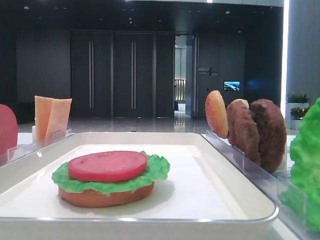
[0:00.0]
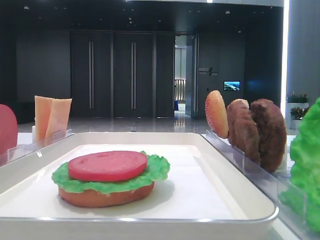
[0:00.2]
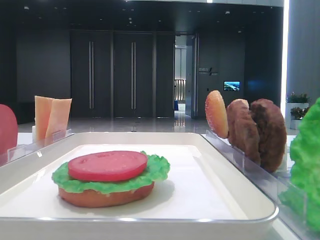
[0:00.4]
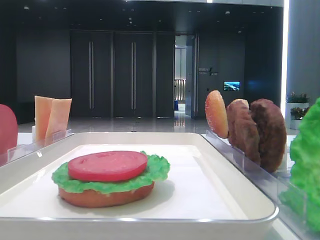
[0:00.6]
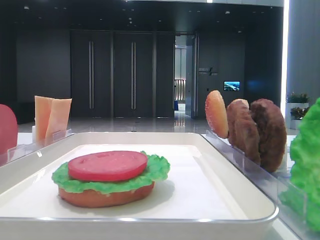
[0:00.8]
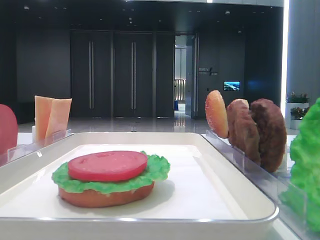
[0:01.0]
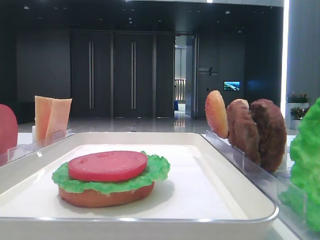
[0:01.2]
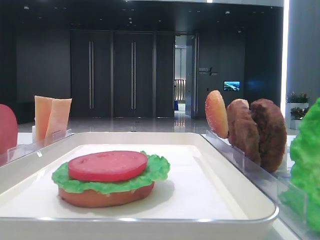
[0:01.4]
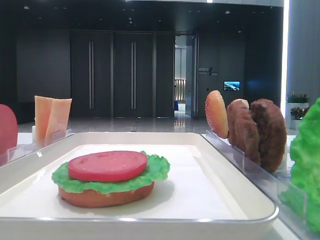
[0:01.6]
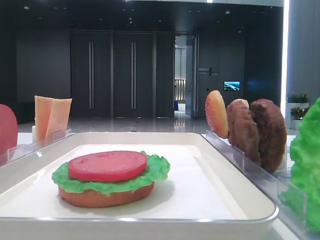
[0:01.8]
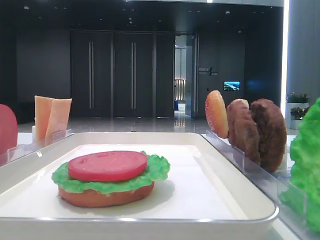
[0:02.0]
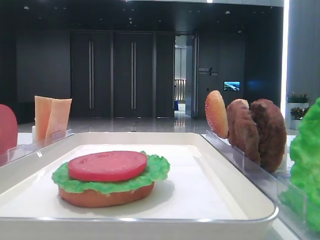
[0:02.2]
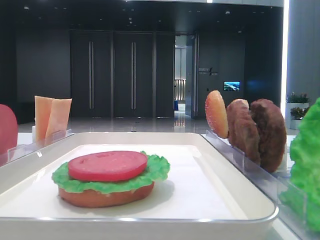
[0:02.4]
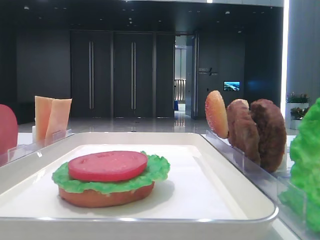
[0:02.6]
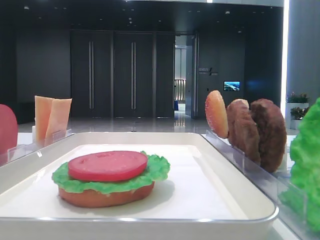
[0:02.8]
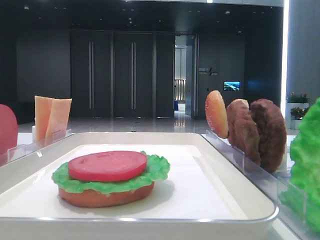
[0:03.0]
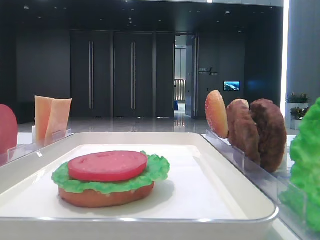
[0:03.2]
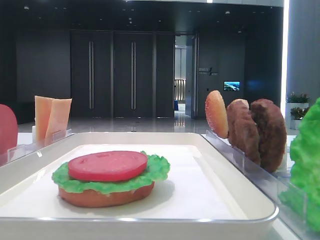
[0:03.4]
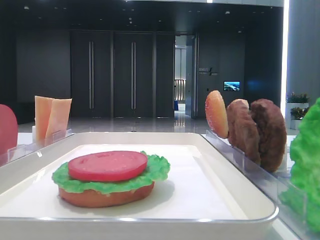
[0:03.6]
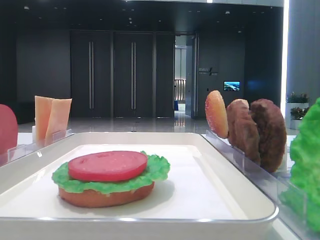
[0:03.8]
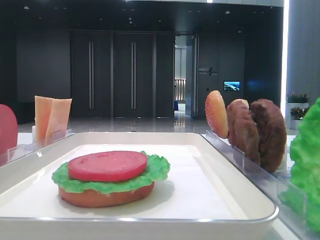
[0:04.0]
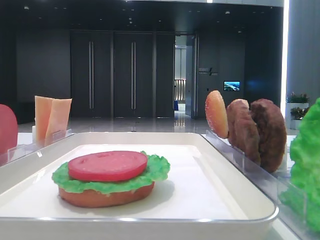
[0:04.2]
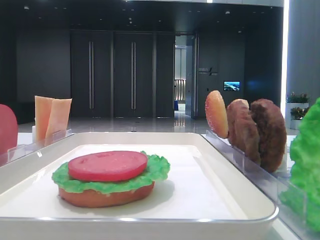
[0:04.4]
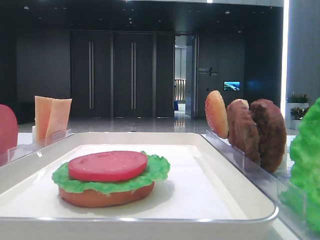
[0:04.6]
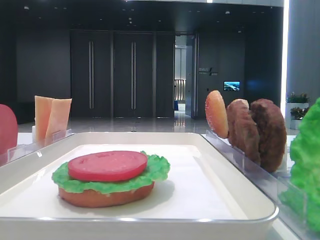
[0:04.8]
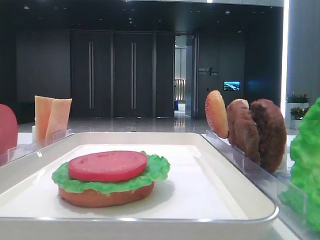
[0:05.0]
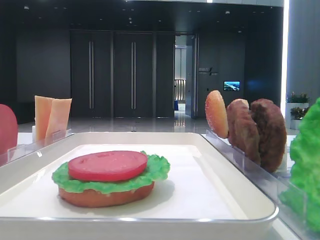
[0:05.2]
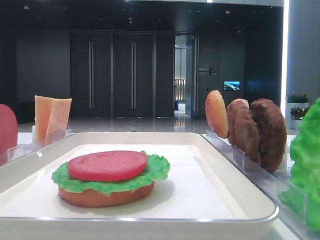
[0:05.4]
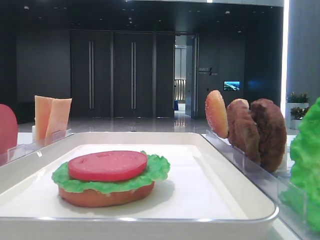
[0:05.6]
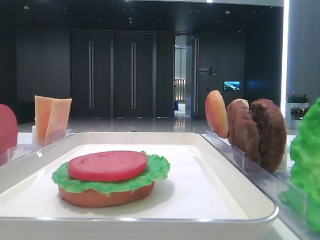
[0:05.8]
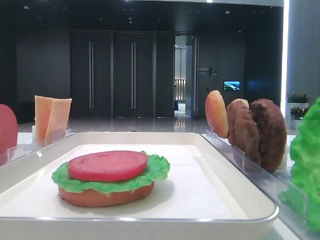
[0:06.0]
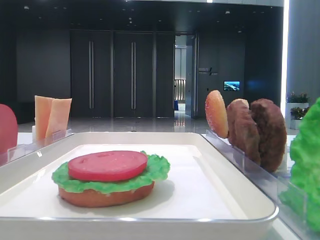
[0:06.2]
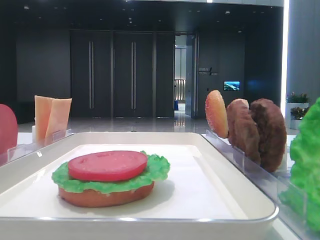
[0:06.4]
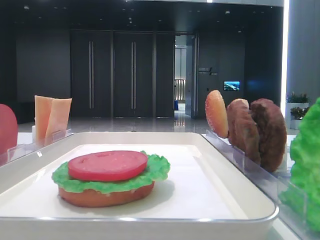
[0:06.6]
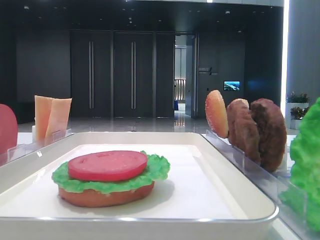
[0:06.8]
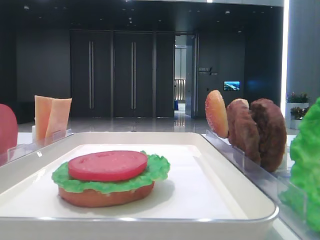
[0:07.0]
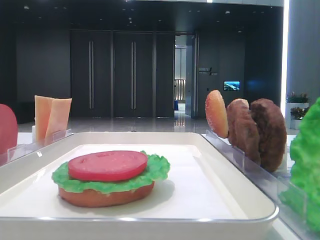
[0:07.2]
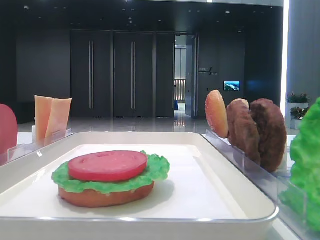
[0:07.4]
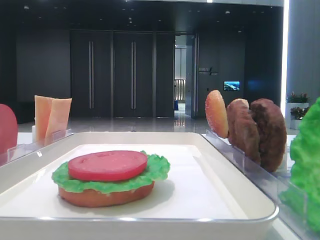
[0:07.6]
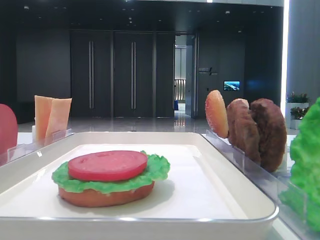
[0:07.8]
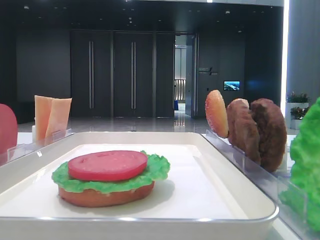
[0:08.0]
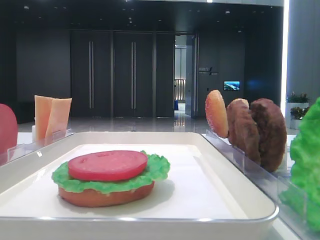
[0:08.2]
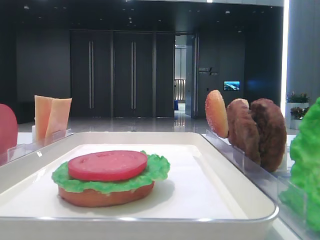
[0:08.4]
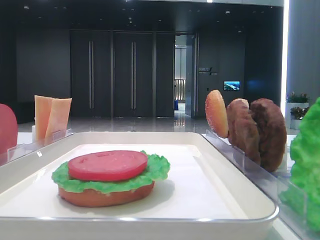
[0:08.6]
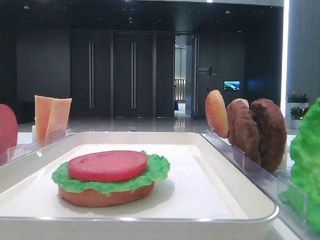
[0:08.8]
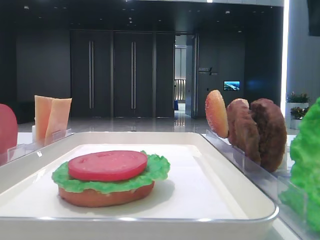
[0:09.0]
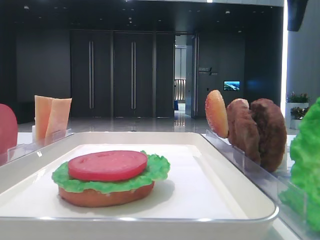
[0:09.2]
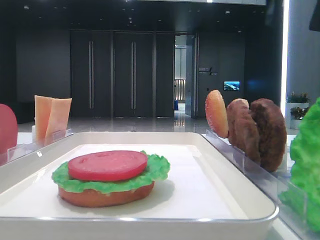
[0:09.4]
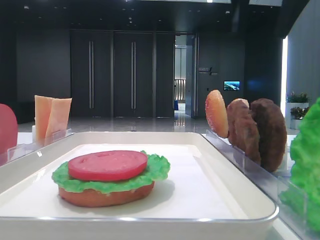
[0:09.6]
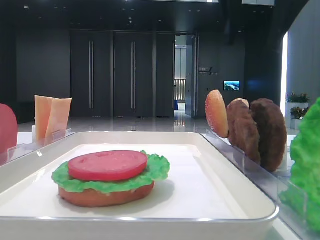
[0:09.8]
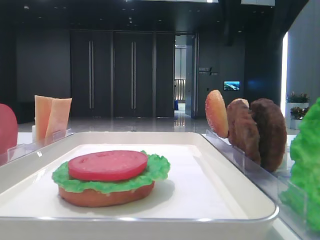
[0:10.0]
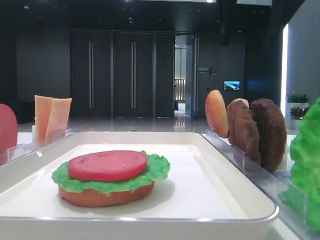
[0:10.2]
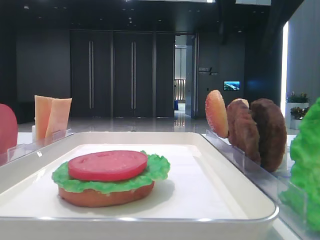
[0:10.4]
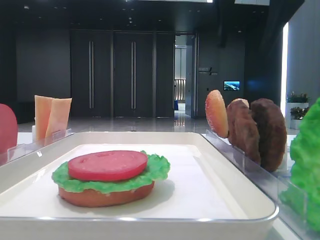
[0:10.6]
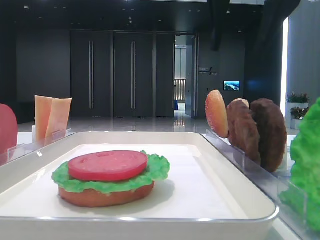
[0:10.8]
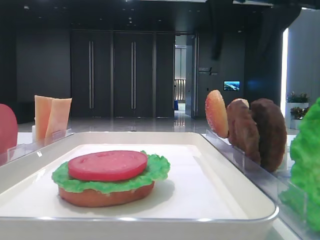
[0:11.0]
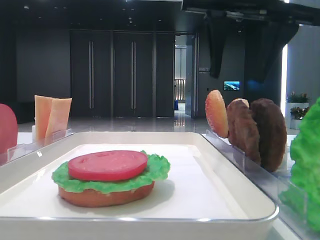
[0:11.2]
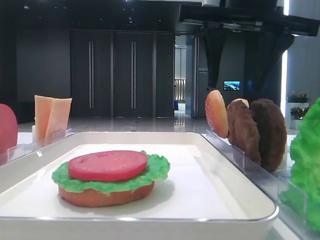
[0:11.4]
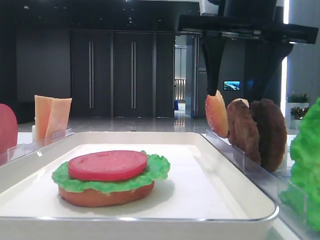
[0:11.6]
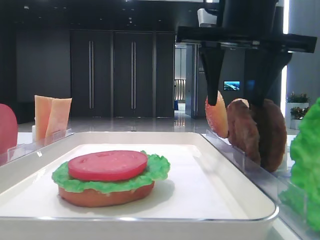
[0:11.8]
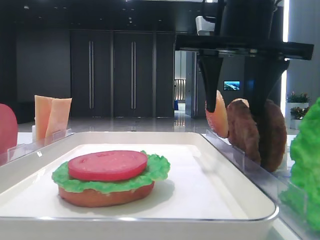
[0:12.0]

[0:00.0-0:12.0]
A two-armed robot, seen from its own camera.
0:01.6 to 0:04.4: Both grippers stay about where they are.
0:09.0 to 0:10.4: The right gripper heads to the left, covering about 10 cm.
0:10.4 to 0:12.0: The right gripper goes approximately 10 cm downward.

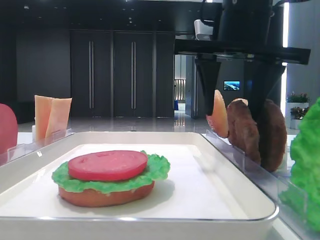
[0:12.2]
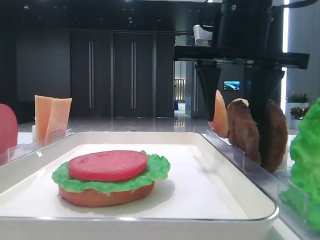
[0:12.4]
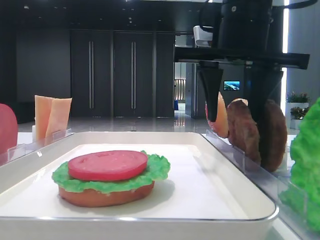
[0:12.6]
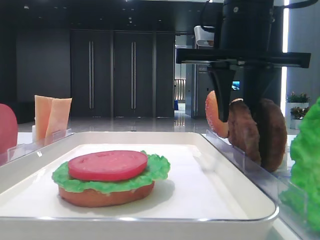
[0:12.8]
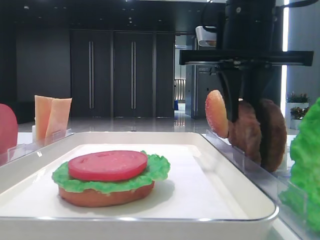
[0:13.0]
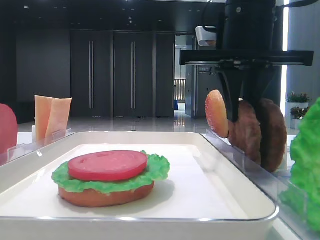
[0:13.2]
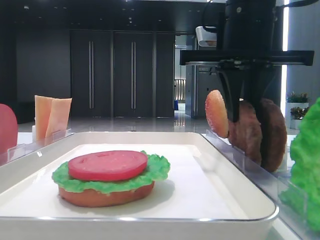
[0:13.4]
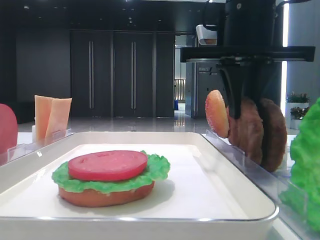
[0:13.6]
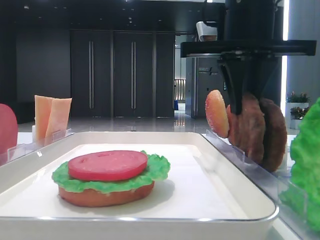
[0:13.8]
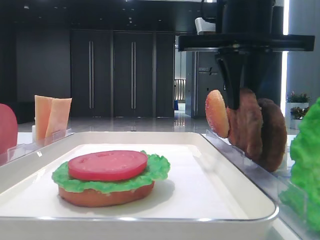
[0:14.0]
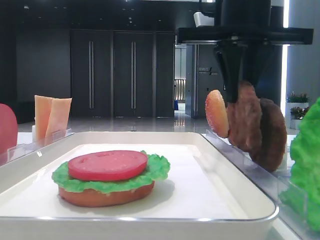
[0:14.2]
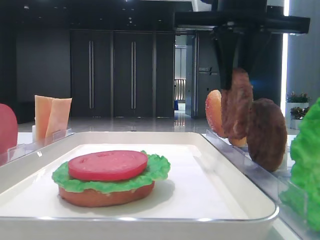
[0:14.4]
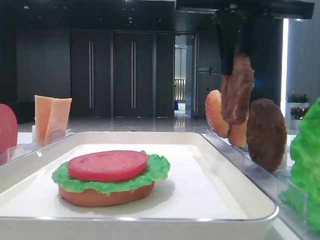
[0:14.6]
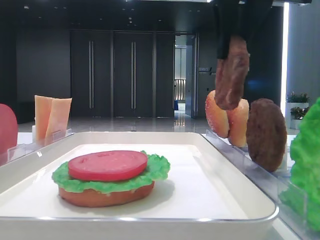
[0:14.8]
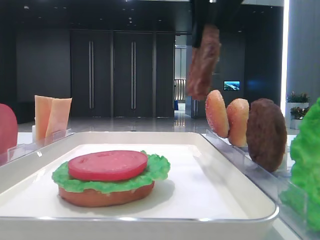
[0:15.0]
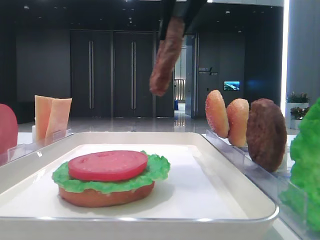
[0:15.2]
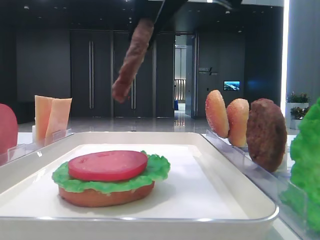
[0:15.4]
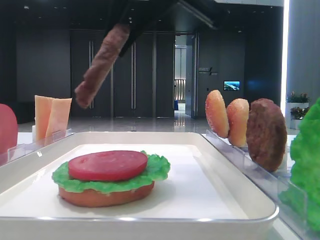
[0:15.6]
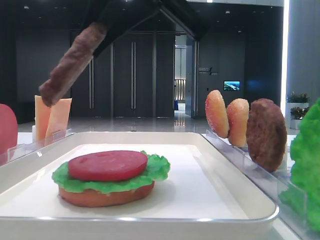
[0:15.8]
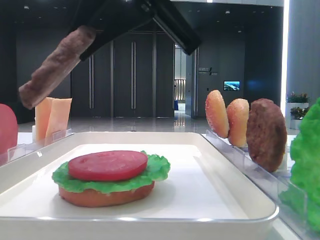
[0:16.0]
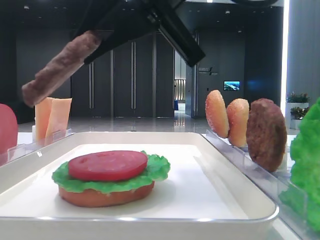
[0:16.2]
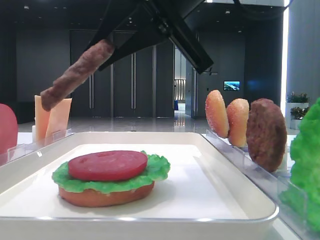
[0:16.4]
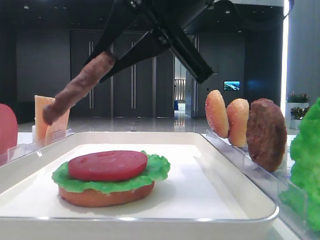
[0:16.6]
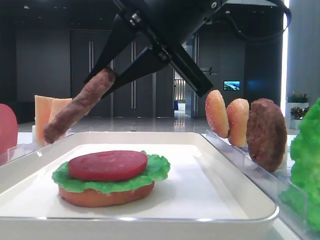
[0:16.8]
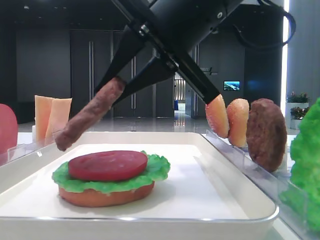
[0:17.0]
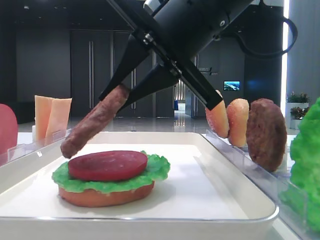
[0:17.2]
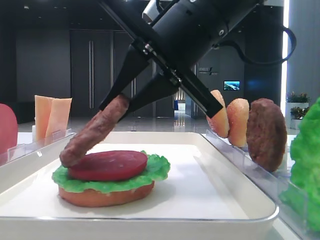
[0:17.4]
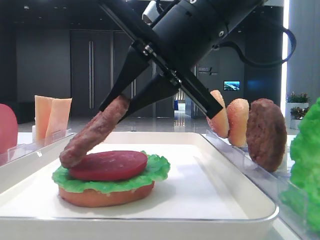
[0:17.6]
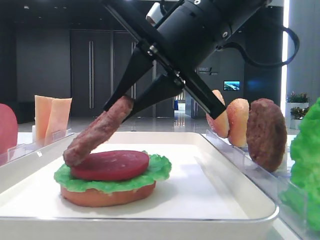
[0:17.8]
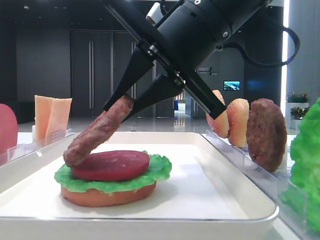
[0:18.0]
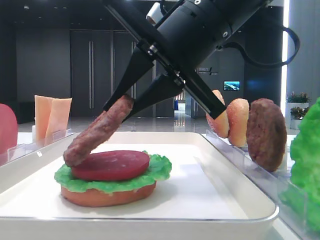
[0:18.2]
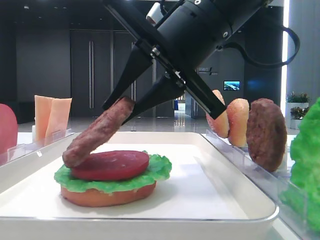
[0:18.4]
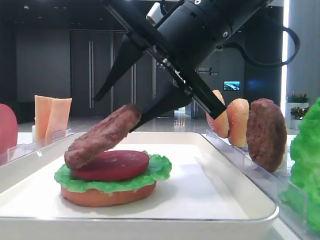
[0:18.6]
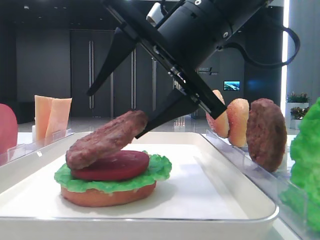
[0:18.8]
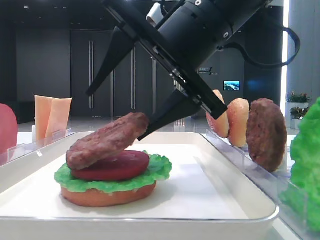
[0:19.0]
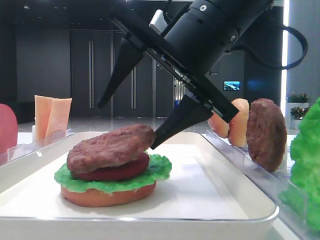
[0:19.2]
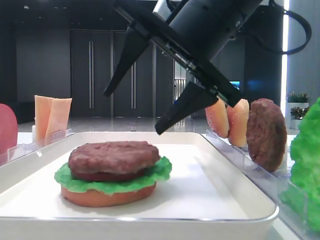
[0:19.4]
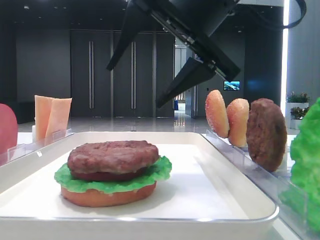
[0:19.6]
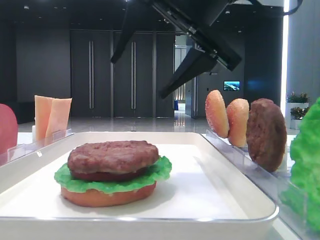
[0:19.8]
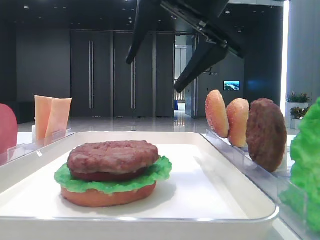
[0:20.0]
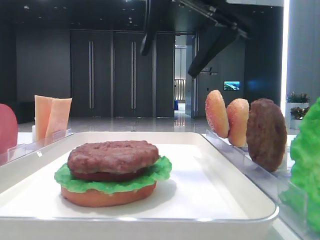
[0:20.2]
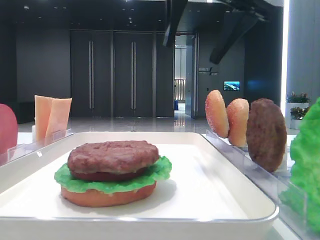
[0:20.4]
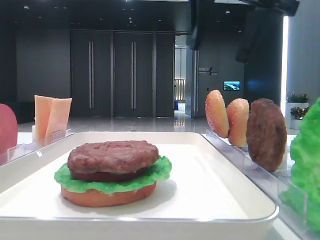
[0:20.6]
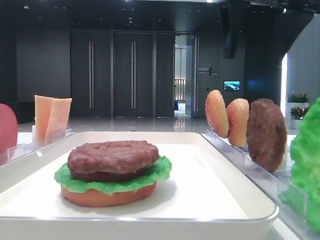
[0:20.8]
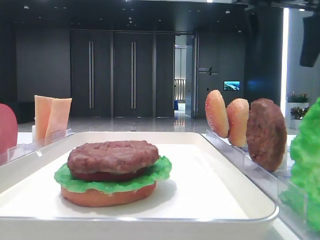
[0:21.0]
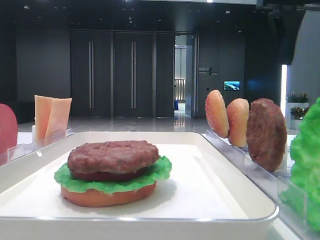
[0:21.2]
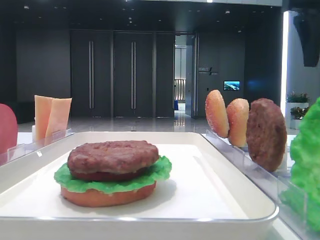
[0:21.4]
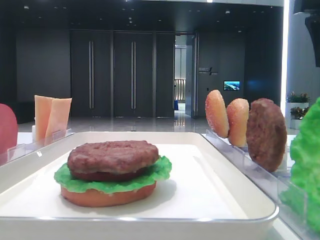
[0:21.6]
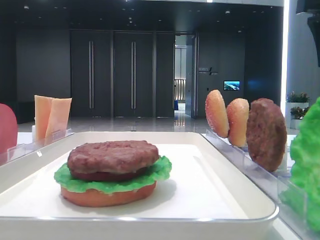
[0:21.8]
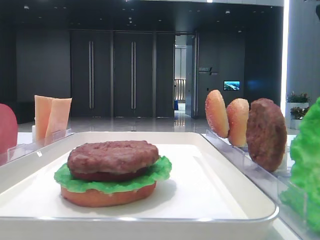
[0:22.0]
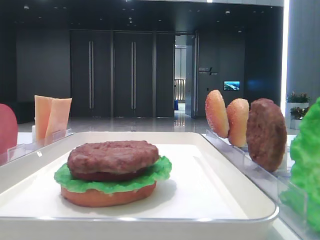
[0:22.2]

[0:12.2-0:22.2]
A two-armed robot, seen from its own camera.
Step, 0:13.2 to 0:19.2: Place the patty on the tomato slice with the right hand.
0:12.2 to 0:13.6: The right gripper closes.
0:13.6 to 0:15.0: The right gripper travels upward by approximately 10 cm.
0:15.0 to 0:16.4: The right gripper is displaced downward by some 5 cm.
0:16.4 to 0:18.0: The right gripper changes place by about 5 cm.
0:18.0 to 0:19.4: The right gripper opens.
0:19.4 to 0:20.8: The right gripper shifts about 15 cm upward, to the right and forward.
0:20.8 to 0:22.2: The right gripper goes some 15 cm to the right.

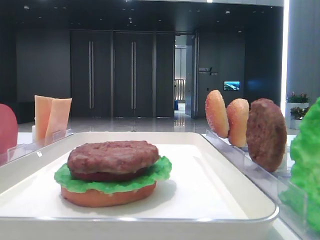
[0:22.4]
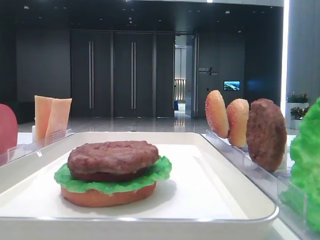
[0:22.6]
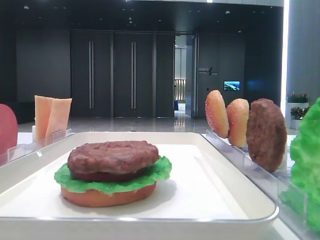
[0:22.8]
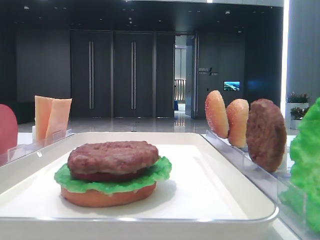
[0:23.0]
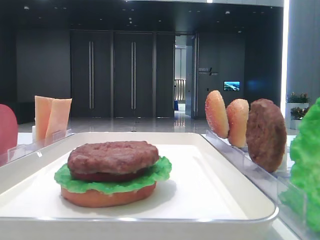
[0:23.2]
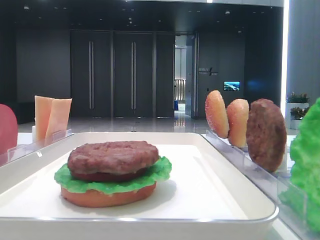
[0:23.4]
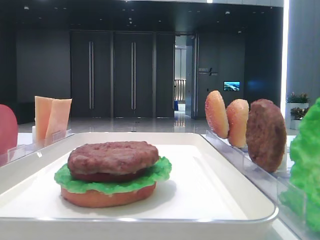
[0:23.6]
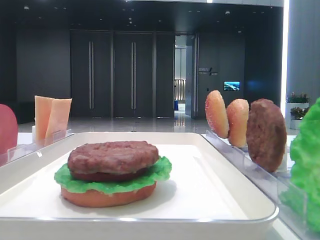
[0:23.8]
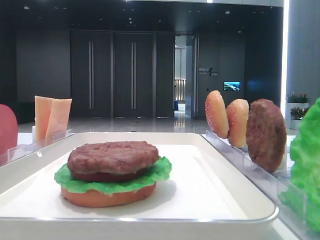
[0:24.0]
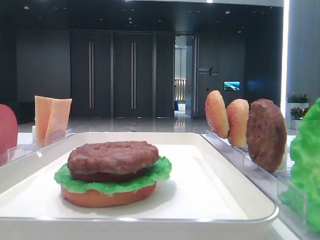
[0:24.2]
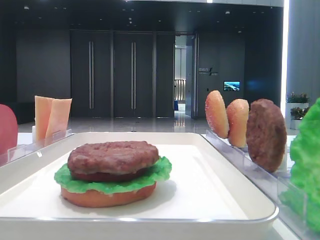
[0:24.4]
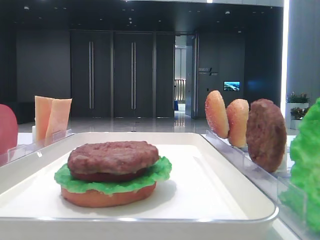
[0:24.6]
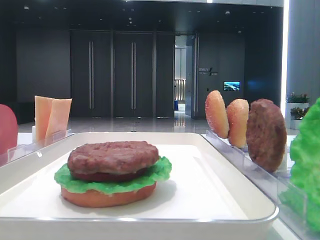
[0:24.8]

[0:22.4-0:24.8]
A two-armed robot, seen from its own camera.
0:22.4 to 0:23.6: The right gripper goes approximately 25 cm backward.
